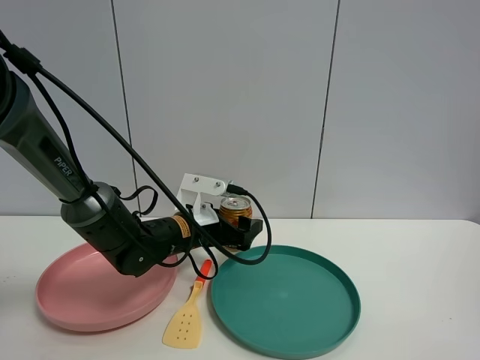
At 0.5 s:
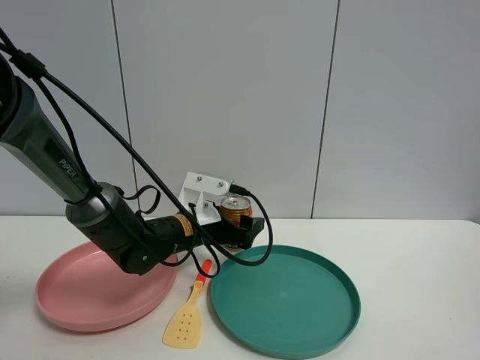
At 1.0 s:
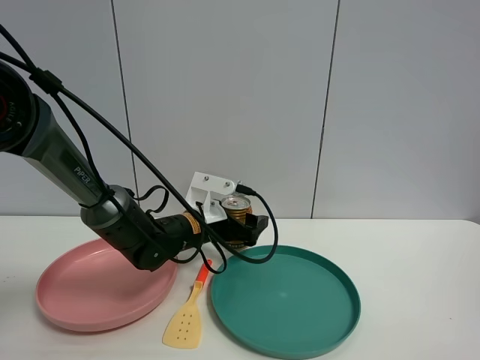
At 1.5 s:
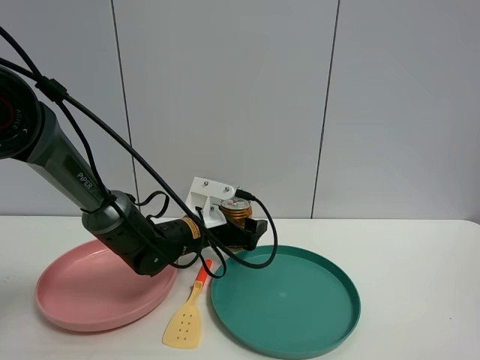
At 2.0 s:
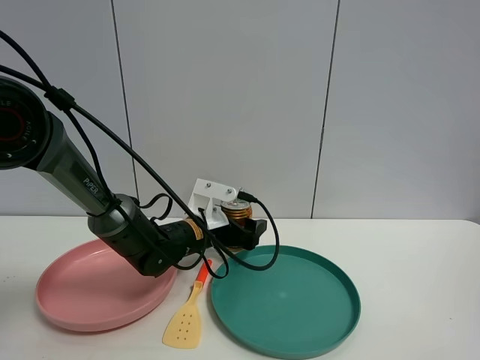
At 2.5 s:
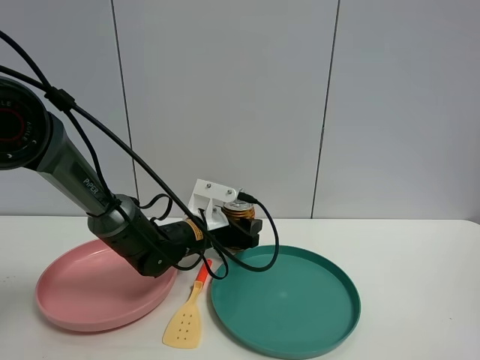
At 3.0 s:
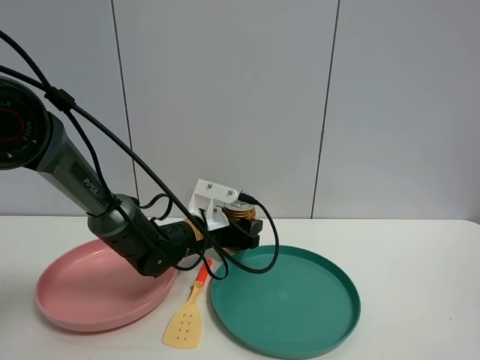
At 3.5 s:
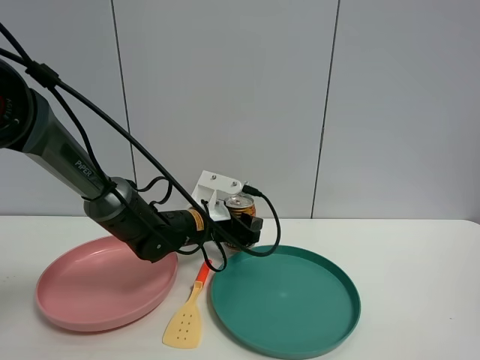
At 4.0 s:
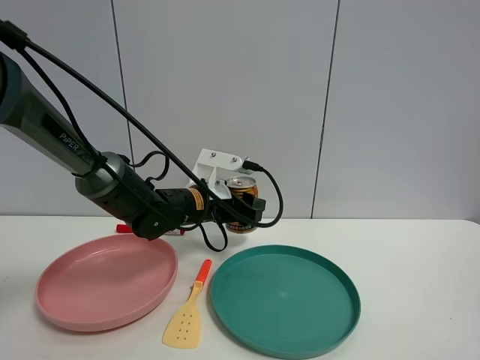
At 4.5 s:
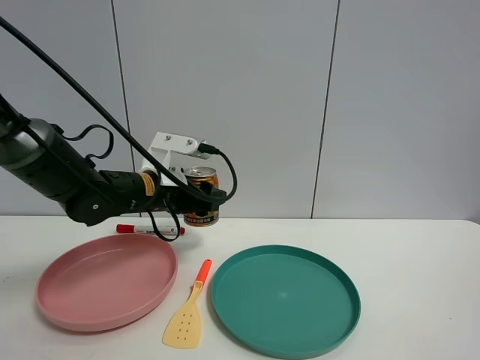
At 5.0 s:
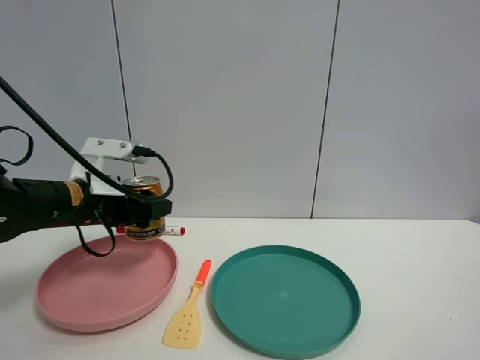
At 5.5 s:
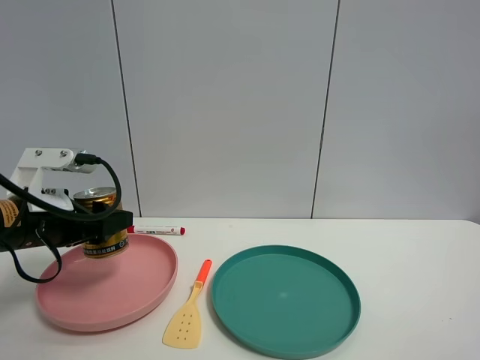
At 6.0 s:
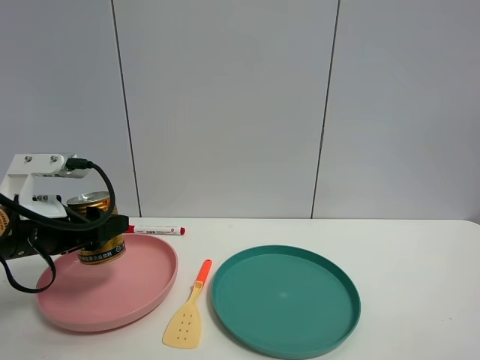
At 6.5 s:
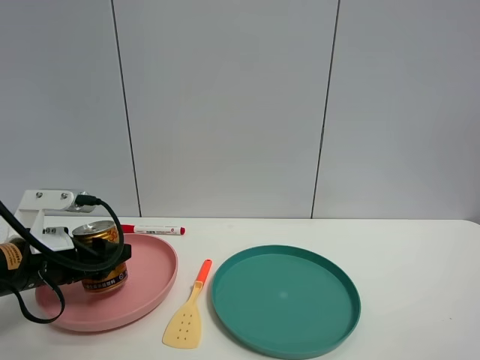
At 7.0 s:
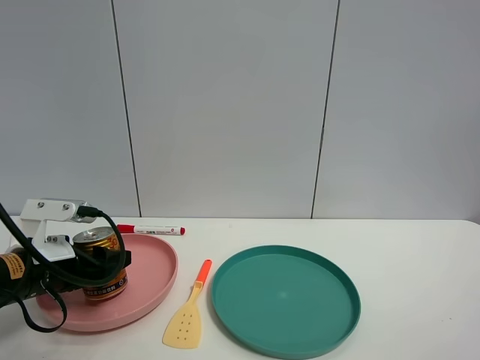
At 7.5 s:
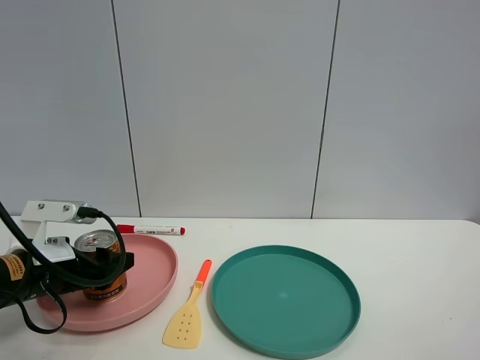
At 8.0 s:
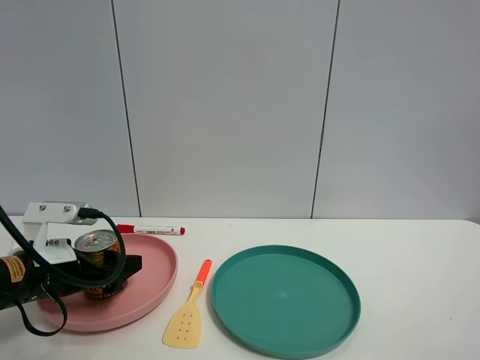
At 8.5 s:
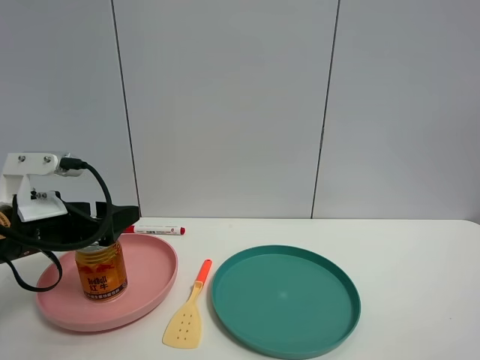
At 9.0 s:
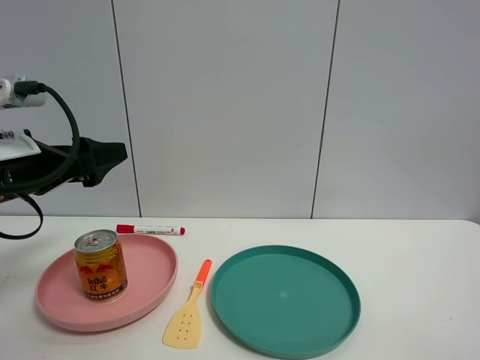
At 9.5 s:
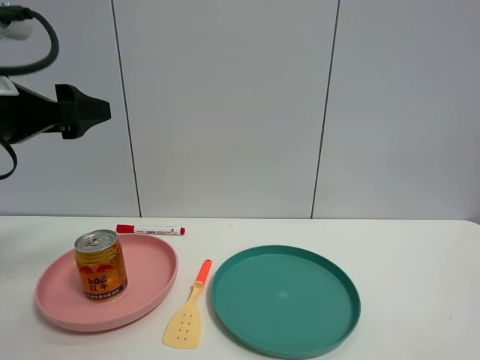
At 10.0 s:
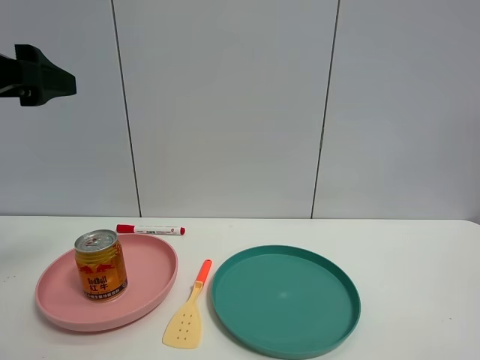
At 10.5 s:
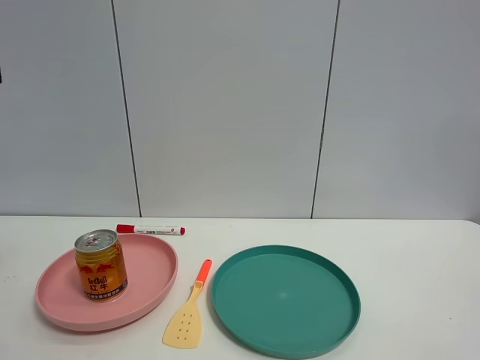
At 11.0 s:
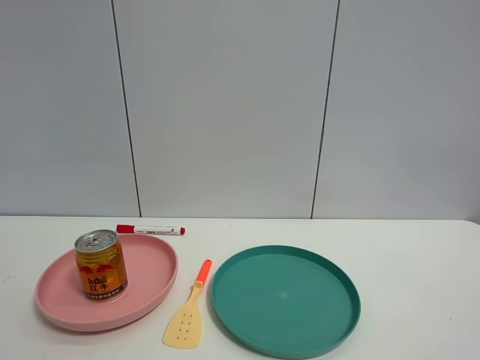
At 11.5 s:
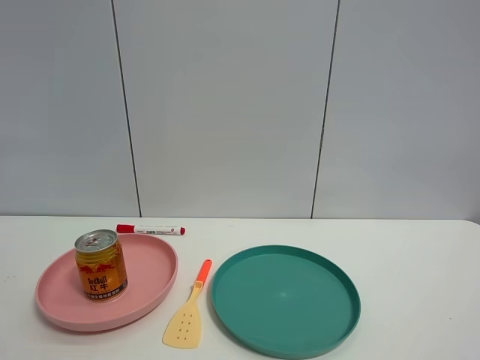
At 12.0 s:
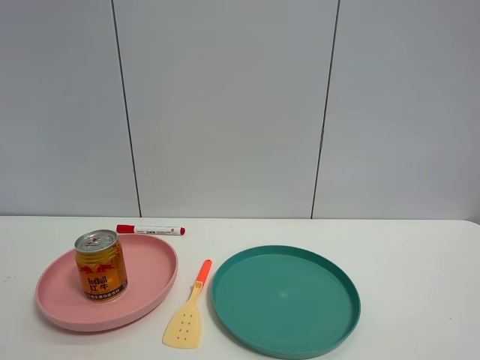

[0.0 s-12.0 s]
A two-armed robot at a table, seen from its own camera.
Task of the whole recording: the gripper move the object.
Step, 0.0 to 2.5 s: Grasp the red bull with the left gripper.
Step, 3.0 to 8.0 s: Place the red bull into the pink plate with the left gripper.
0.0 to 2.0 s: The left gripper closes up.
2.0 to 4.0 s: The left gripper travels upward by approximately 5 cm, and closes up.
4.0 to 6.0 s: The left gripper goes approximately 25 cm to the left and backward.
6.0 to 8.0 s: The left gripper shifts roughly 5 cm downward, and opens.
8.0 to 10.0 s: The left gripper shifts approximately 25 cm upward.
10.0 to 12.0 s: The left gripper moves backward, about 20 cm.

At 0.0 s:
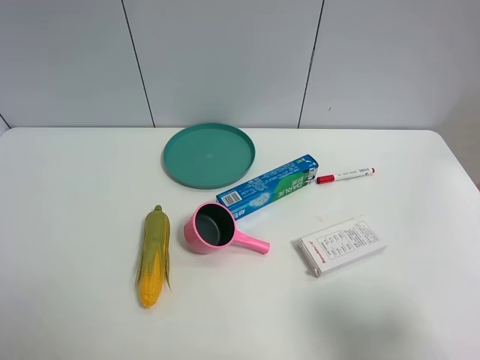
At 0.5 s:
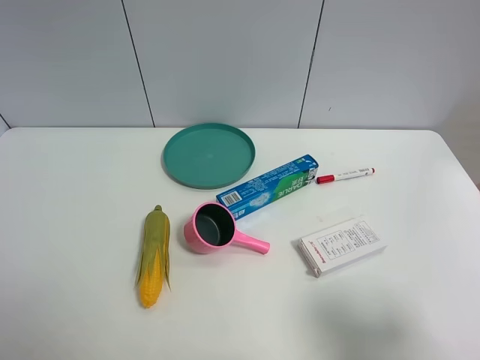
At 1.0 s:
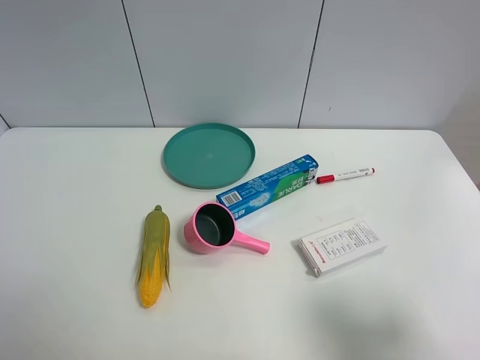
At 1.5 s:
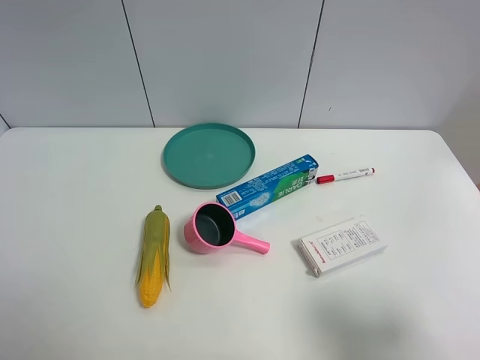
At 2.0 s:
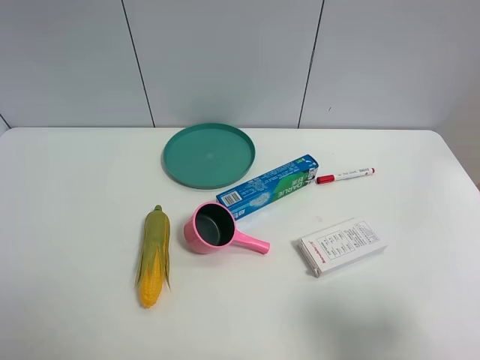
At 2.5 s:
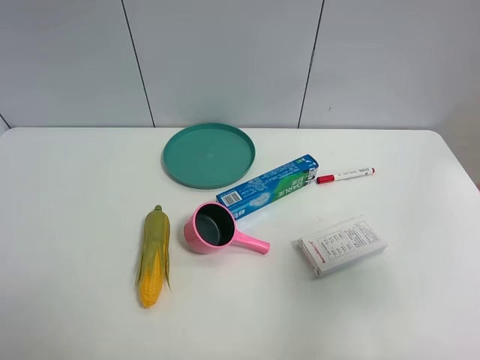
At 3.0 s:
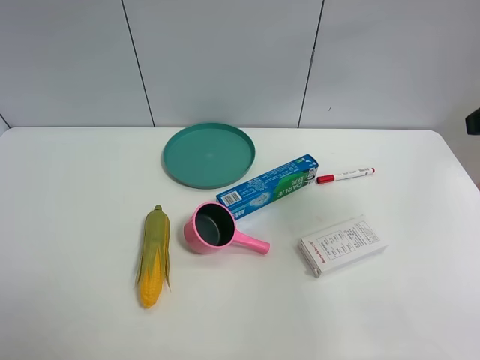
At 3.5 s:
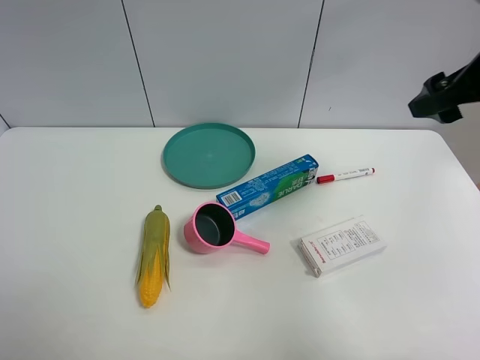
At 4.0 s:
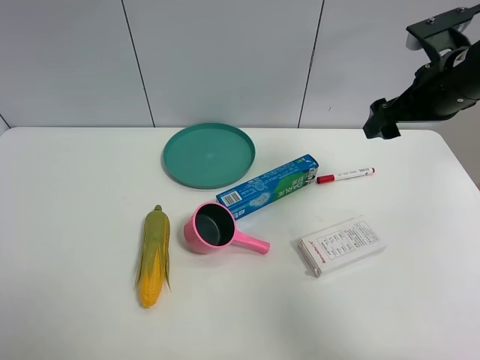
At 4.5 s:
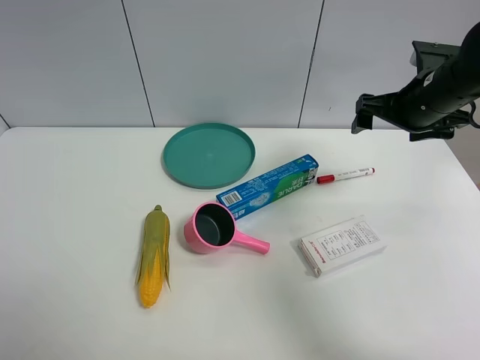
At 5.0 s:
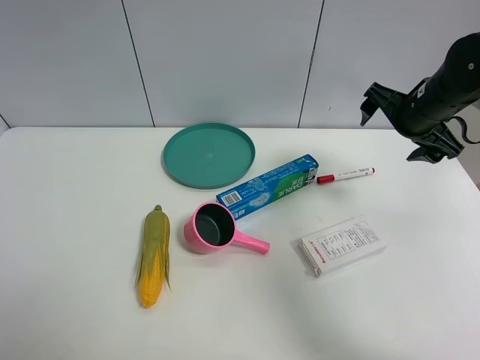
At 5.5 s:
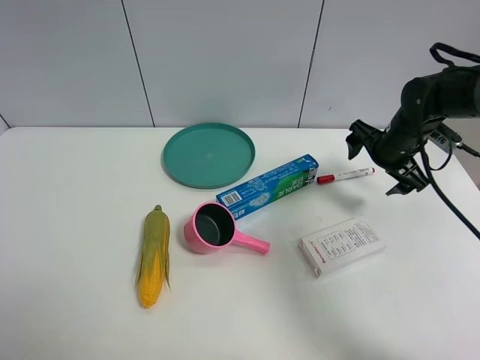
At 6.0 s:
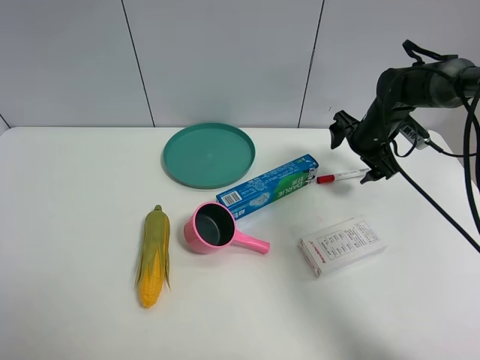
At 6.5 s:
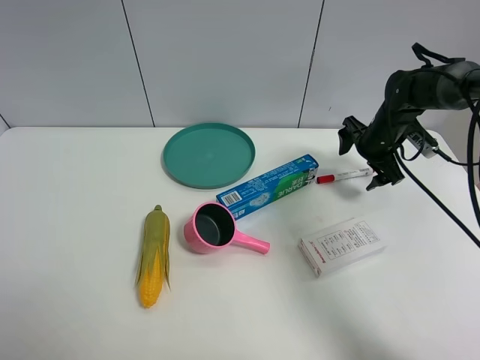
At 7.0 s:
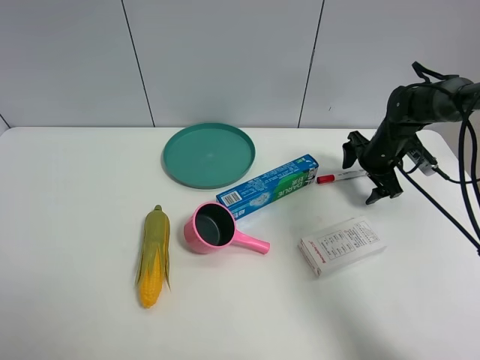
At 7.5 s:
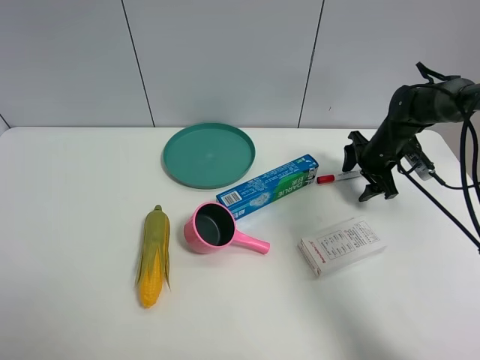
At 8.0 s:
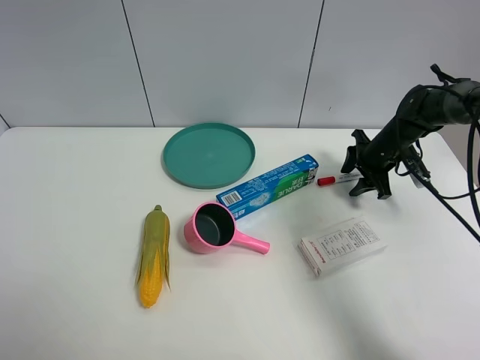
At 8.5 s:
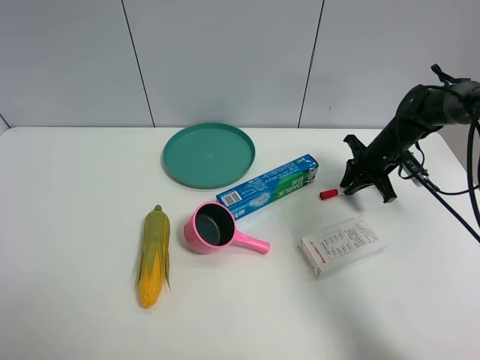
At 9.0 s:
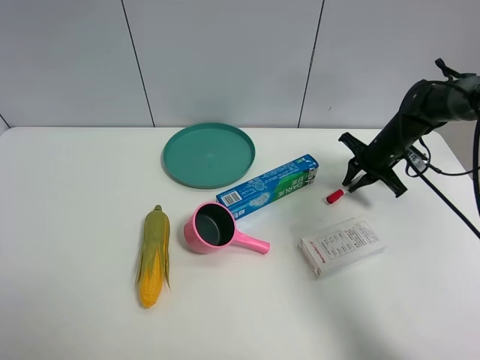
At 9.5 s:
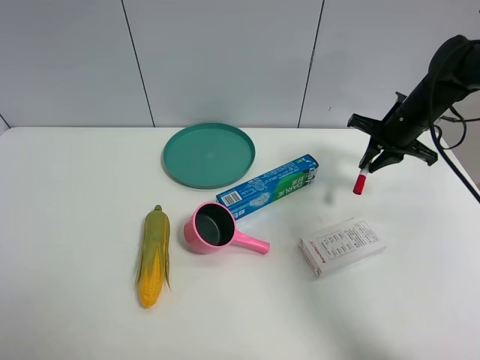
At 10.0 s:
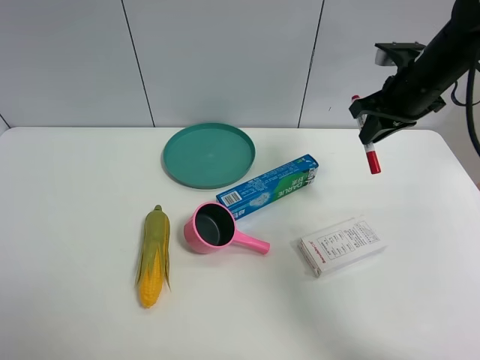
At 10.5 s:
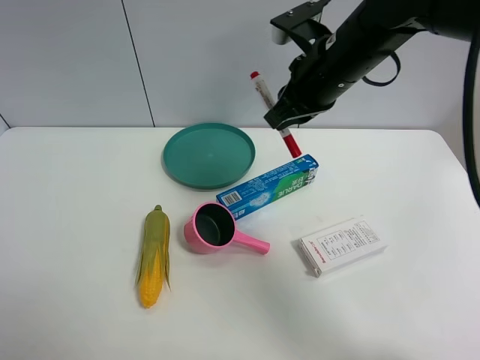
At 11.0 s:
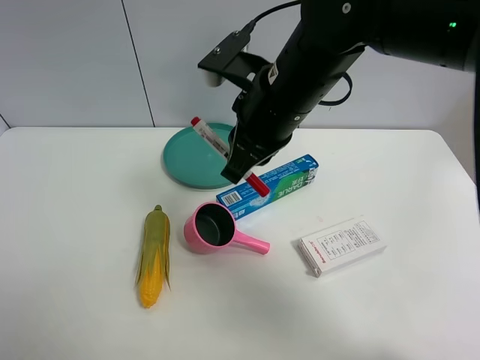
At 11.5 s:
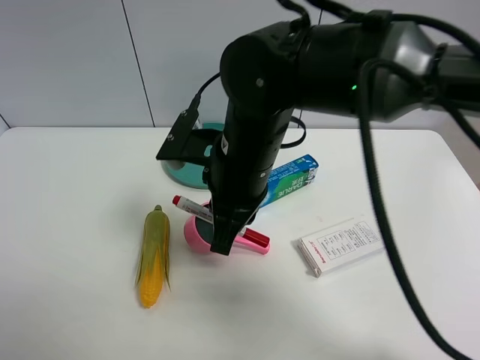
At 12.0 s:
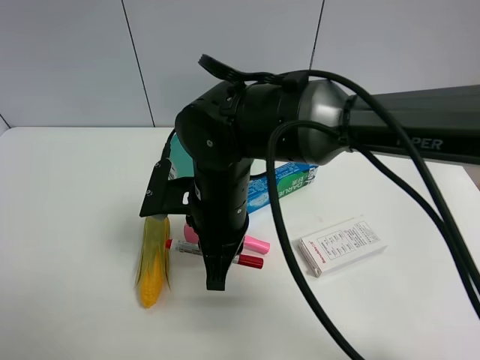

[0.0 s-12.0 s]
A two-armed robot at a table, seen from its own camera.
Task of the whole recording: the gripper move the object.
Step, 0.0 to 8.0 s: Grasp the red marker pen with the right gripper.
0.0 to 2.0 s: Neither gripper changes place.
2.0 to 4.0 s: The right gripper moves forward, some 30 cm.
4.0 to 6.0 s: The right gripper heads downward and forward, covering roughly 20 cm.
6.0 to 8.0 s: The right gripper changes place by roughly 5 cm, and closes up.
8.0 to 10.0 s: The right gripper heads upward and backward, covering about 20 cm, and closes.
10.0 to 12.0 s: The right gripper travels to the left and backward by some 30 cm.

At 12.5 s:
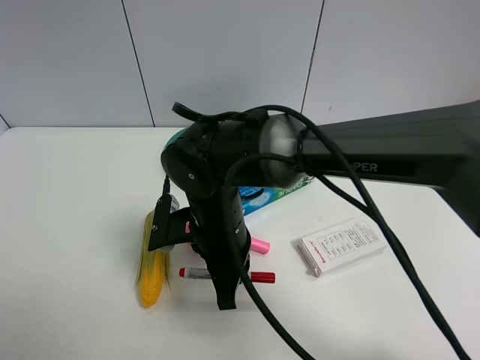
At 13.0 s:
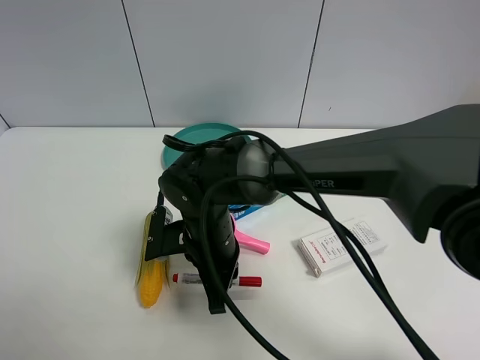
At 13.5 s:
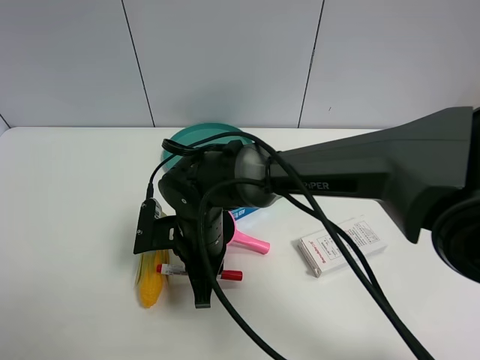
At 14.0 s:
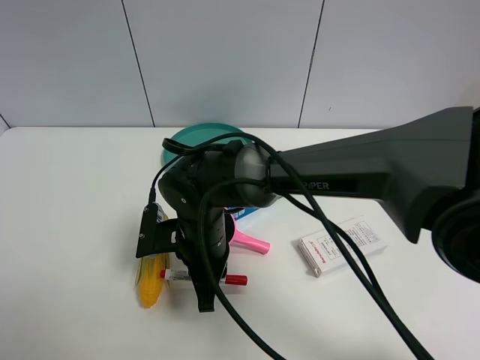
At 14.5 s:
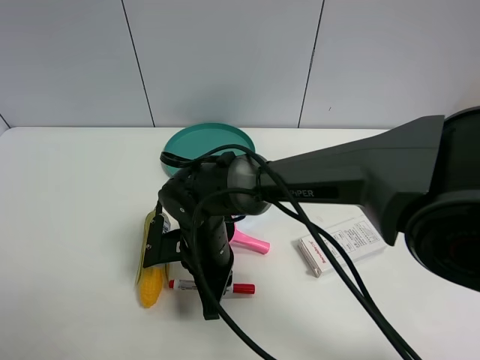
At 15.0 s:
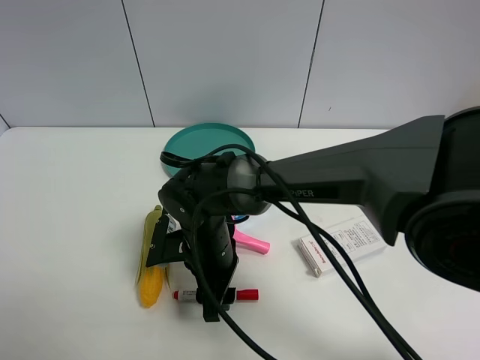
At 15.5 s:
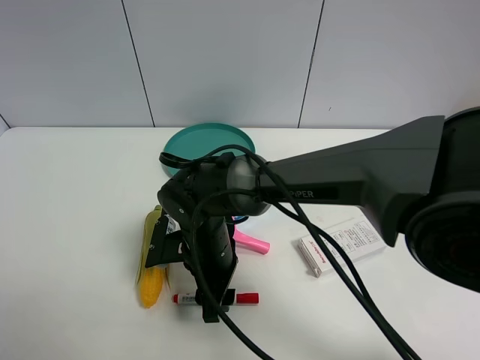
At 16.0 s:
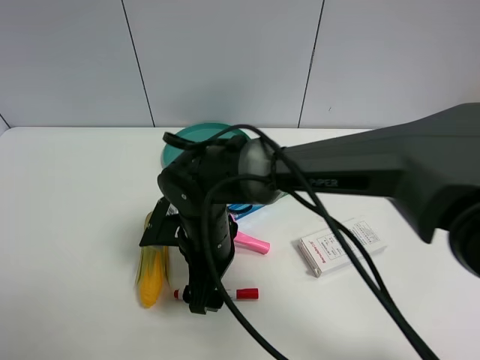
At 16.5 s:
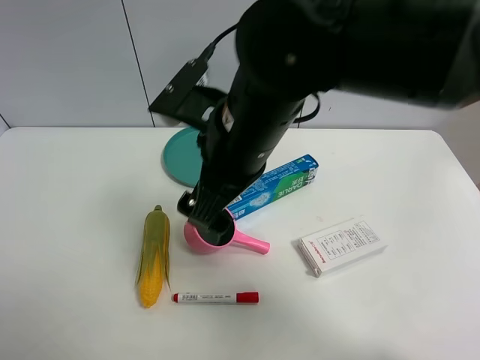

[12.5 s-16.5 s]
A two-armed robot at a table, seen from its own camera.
Task of the whole recording: the gripper move the object.
Step, 12.5 to 15.0 s: Place the red marker pen on the table with the right gripper.
12.5 to 14.5 s: The right gripper heads downward, covering roughly 5 cm.
14.5 to 16.5 s: The right gripper goes about 20 cm upward, and opens up.
